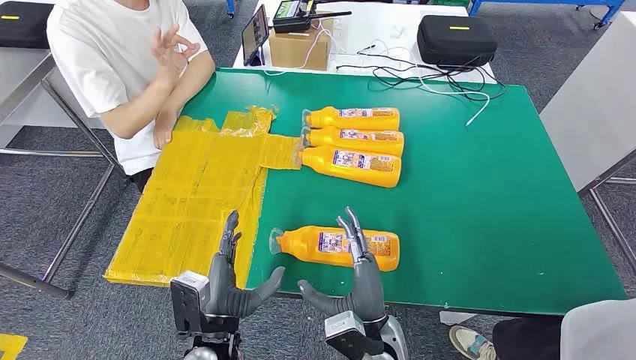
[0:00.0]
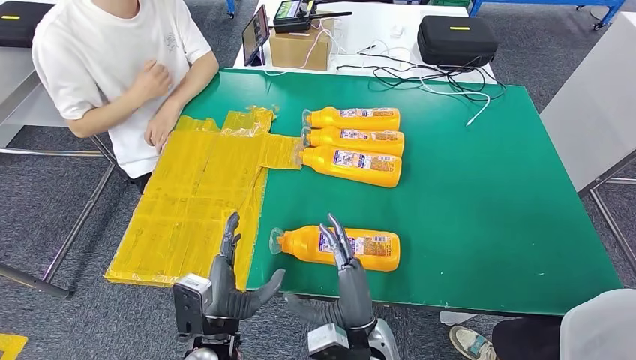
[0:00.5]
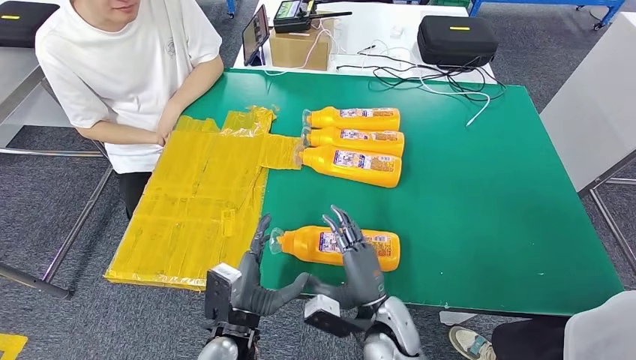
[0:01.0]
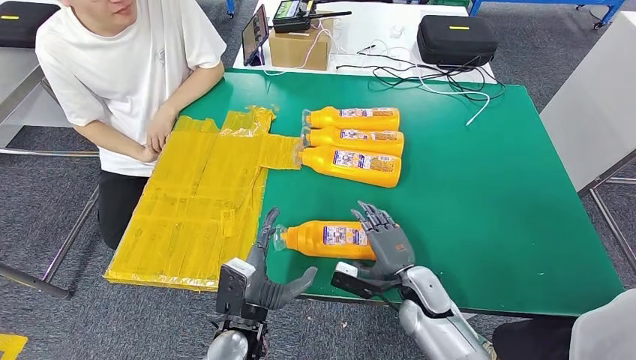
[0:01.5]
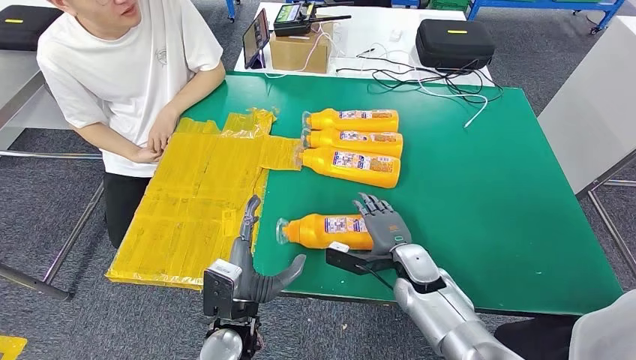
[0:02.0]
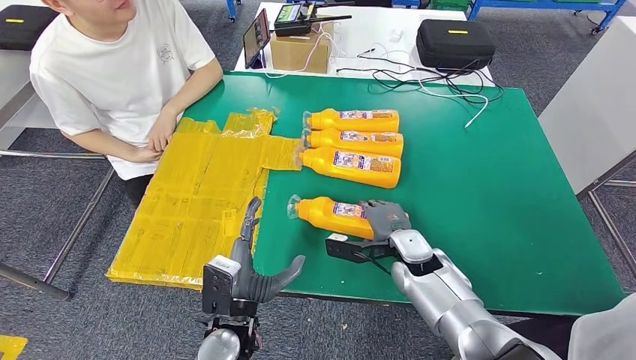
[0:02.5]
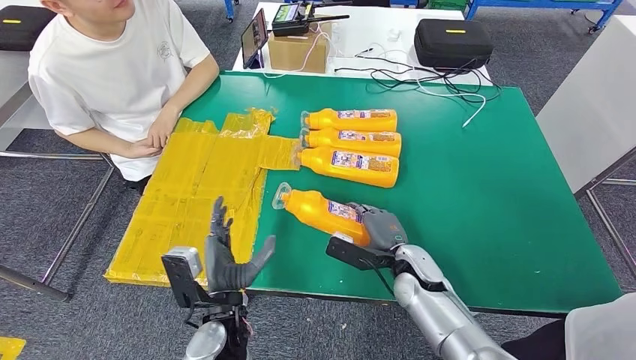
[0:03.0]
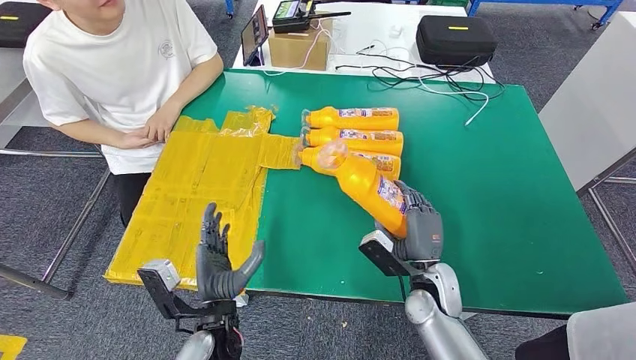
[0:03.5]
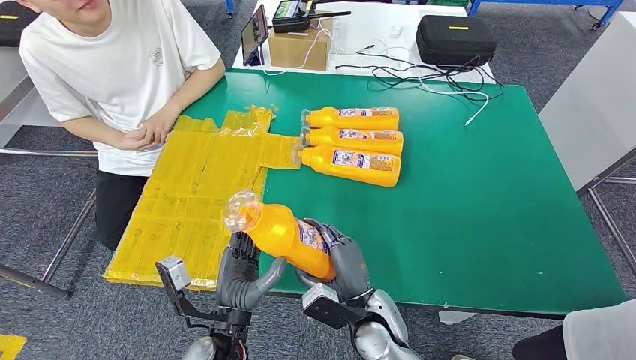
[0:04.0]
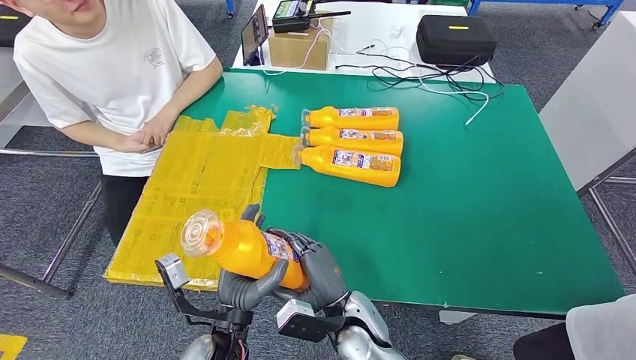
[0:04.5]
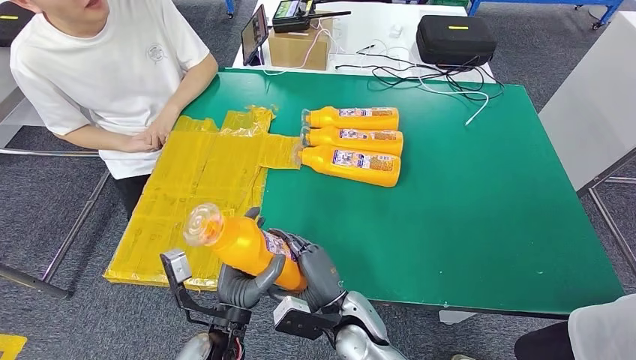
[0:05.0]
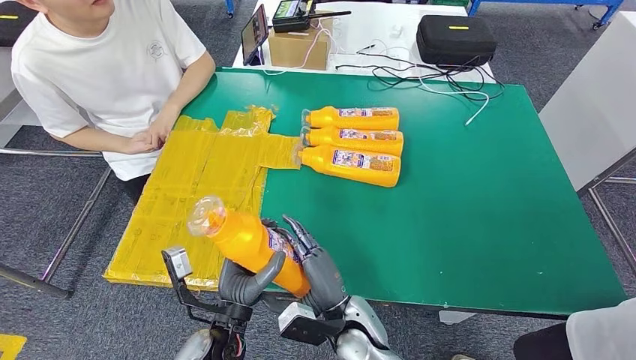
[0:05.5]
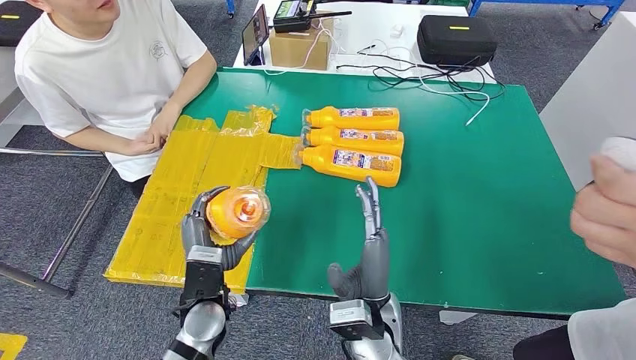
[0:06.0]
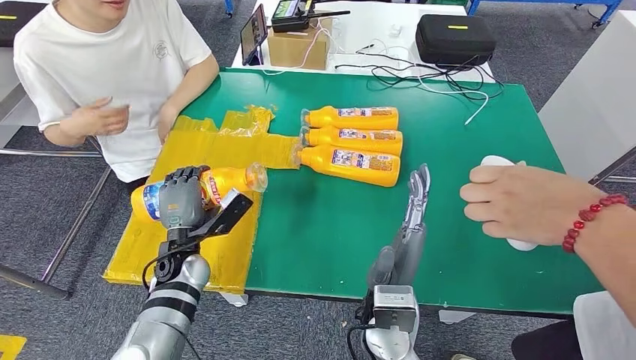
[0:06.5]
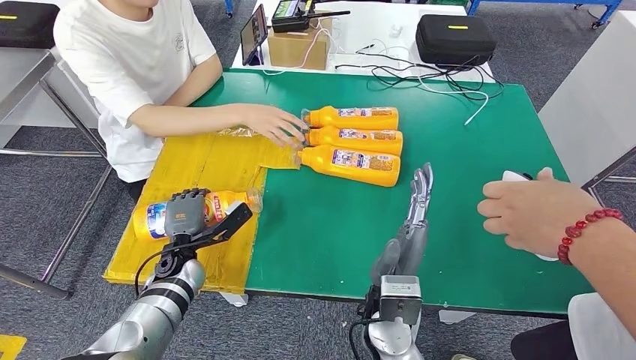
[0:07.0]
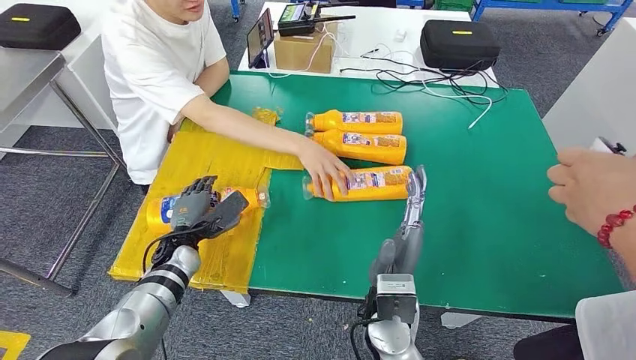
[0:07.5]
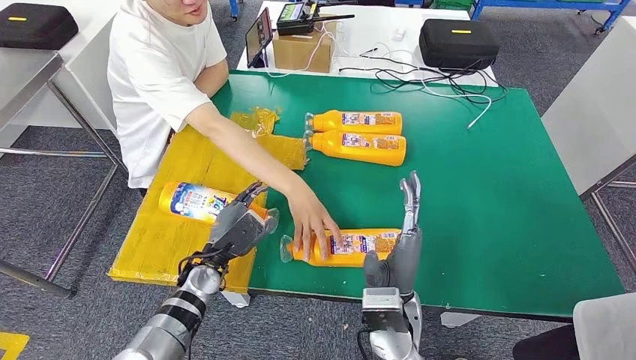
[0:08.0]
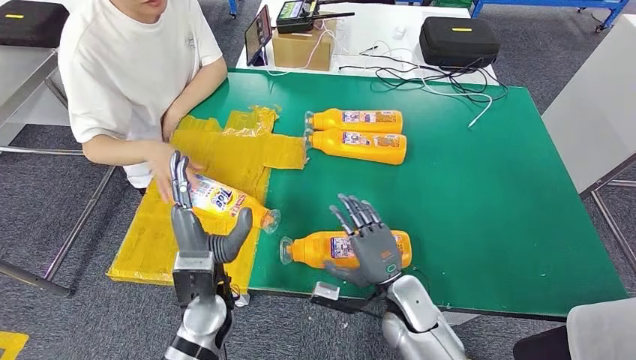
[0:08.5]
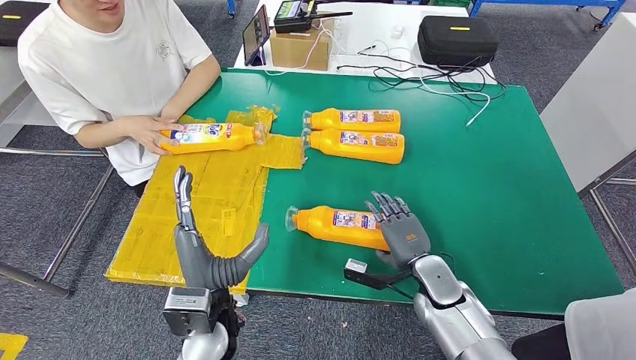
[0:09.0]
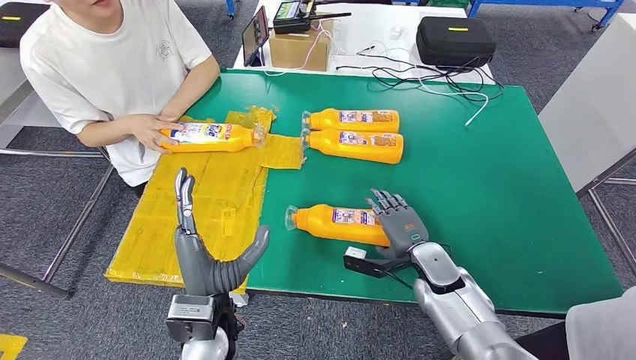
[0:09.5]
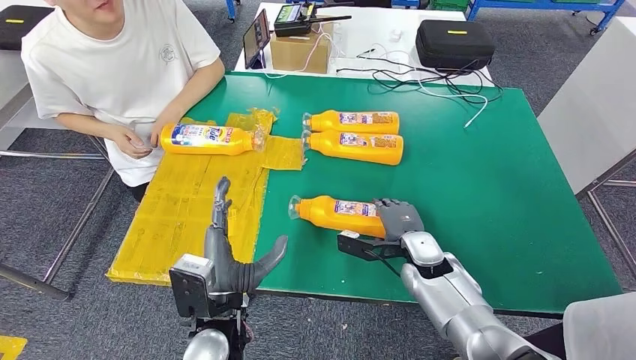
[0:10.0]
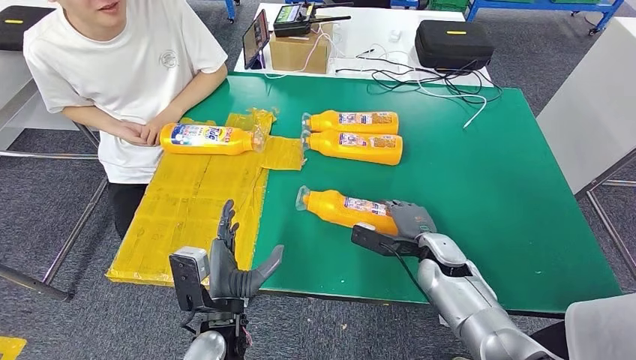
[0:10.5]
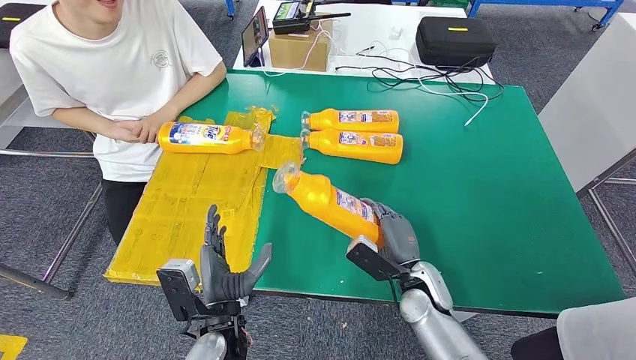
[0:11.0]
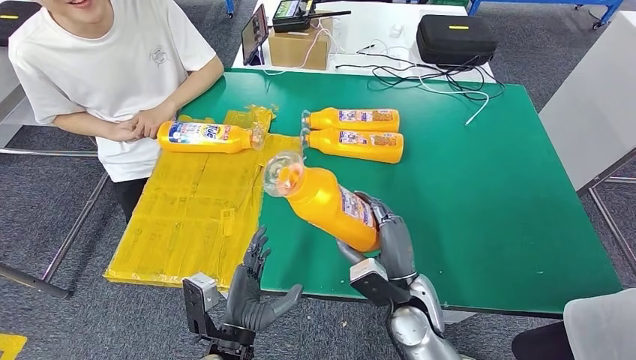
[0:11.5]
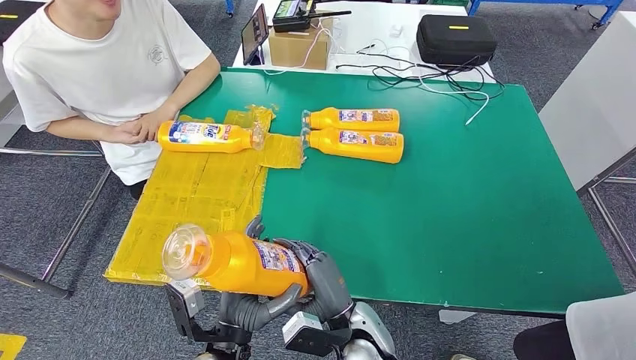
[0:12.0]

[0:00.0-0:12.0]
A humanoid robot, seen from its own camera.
Step, 0:00.0 to 0:03.0: Take the fast-moving consumer goods bottle from the table.
Step, 0:03.5 to 0:08.0: Flip the fast-moving consumer goods bottle to the front side.
0:04.0 to 0:06.0: The left hand travels forward by about 5 cm. Meanwhile the right hand is displaced upward by roughly 5 cm.

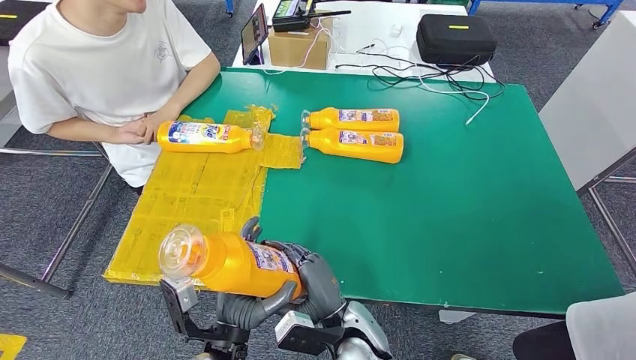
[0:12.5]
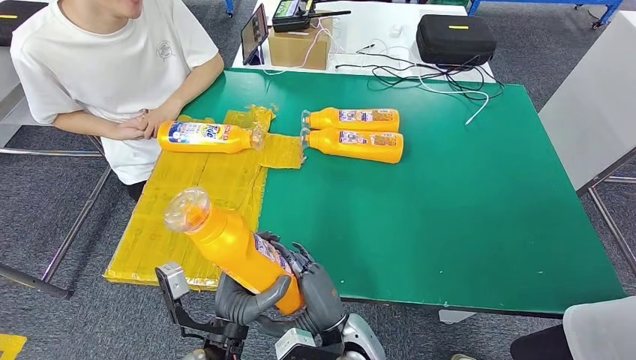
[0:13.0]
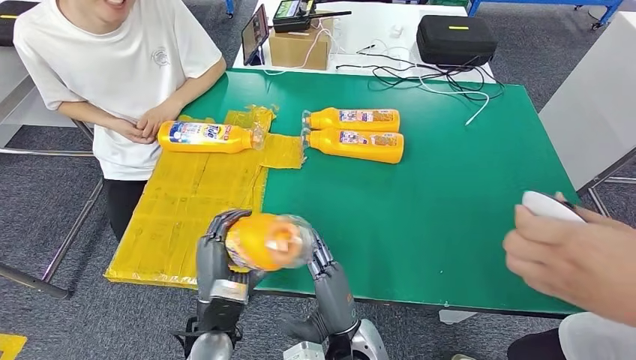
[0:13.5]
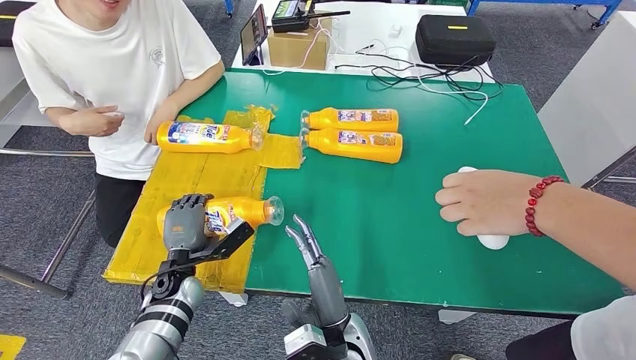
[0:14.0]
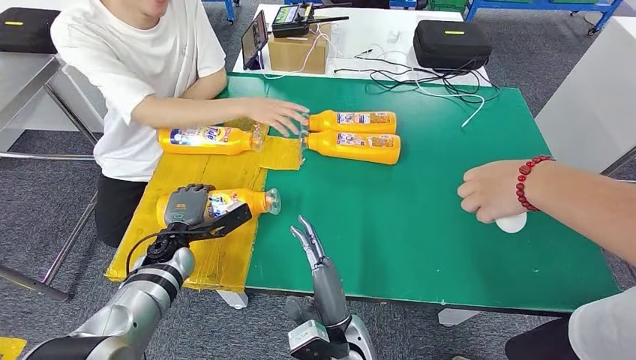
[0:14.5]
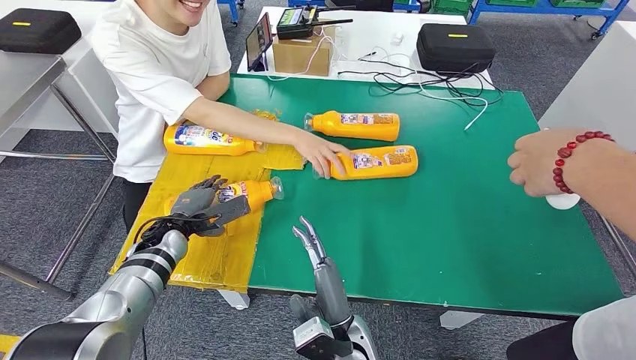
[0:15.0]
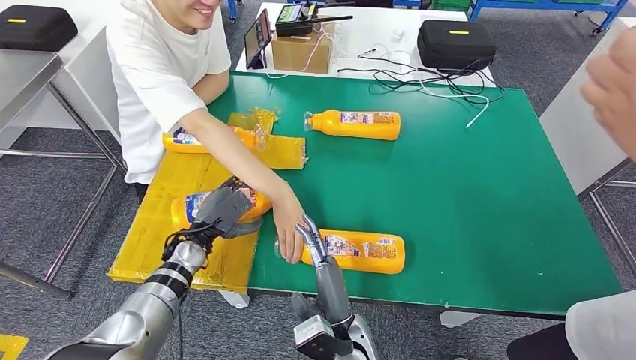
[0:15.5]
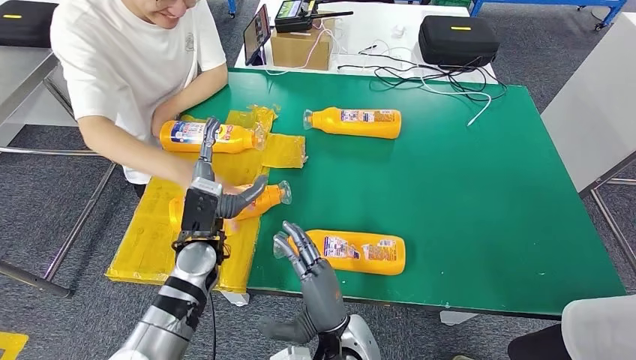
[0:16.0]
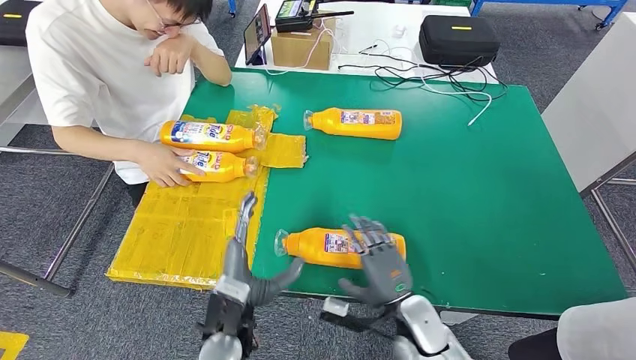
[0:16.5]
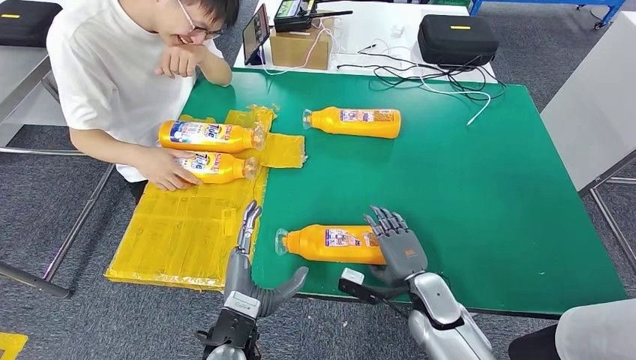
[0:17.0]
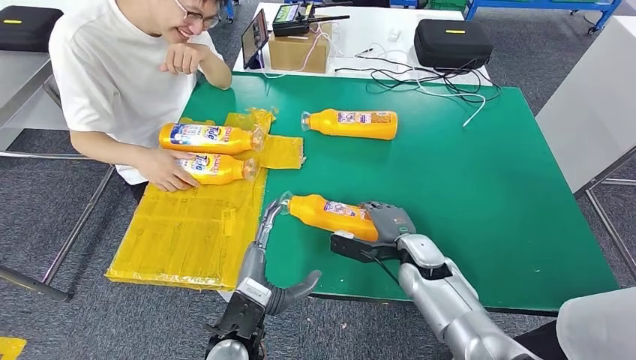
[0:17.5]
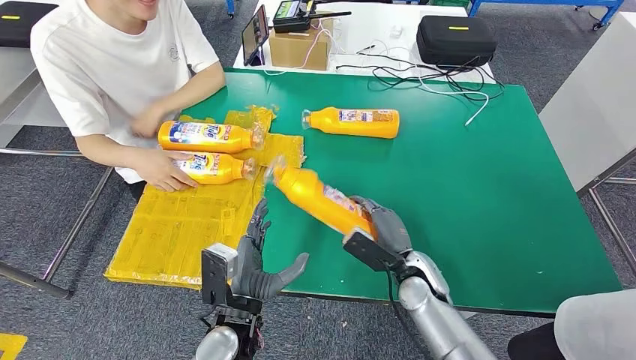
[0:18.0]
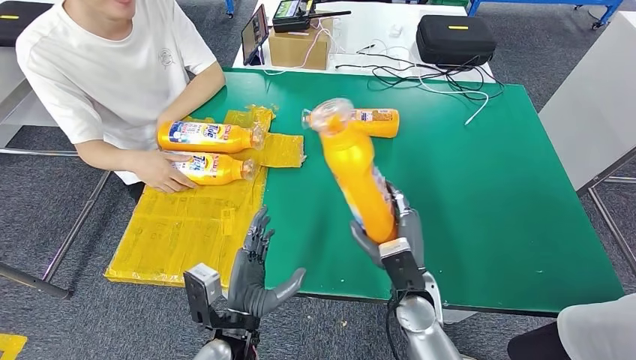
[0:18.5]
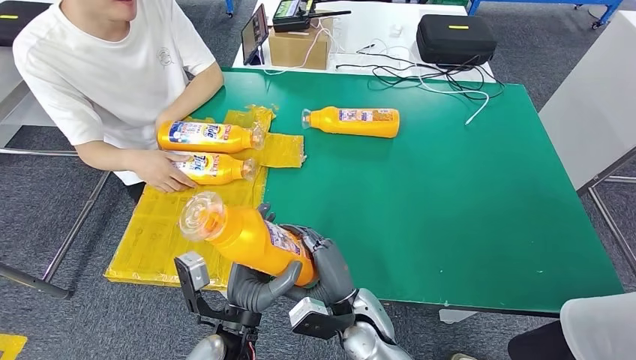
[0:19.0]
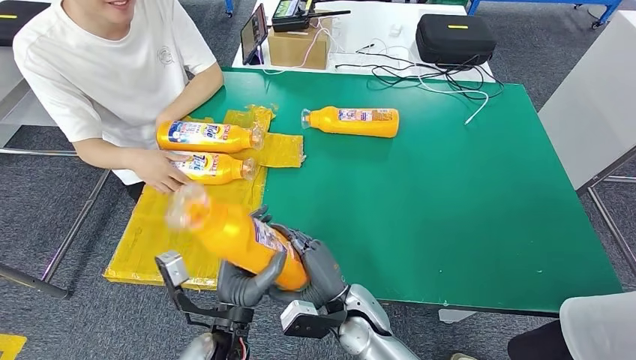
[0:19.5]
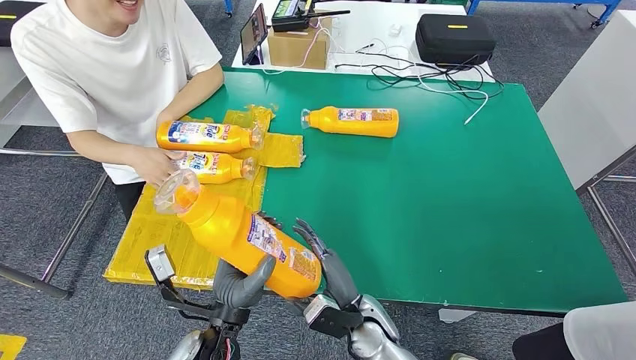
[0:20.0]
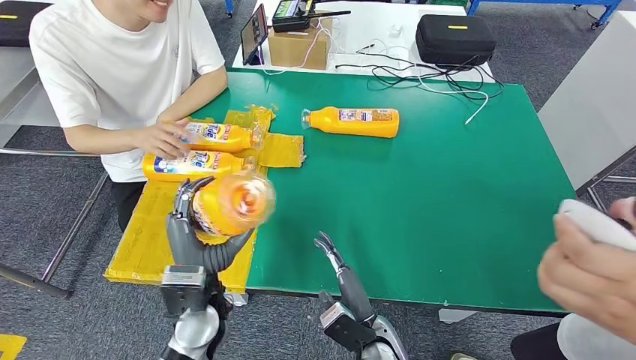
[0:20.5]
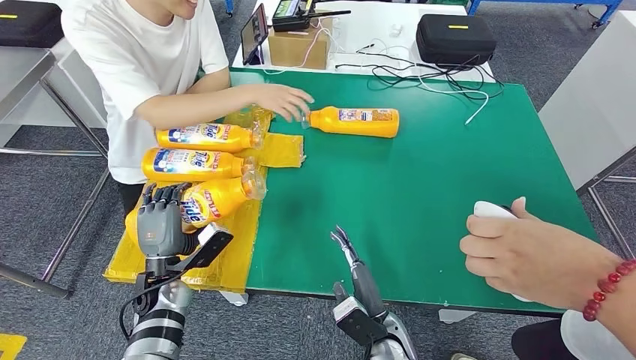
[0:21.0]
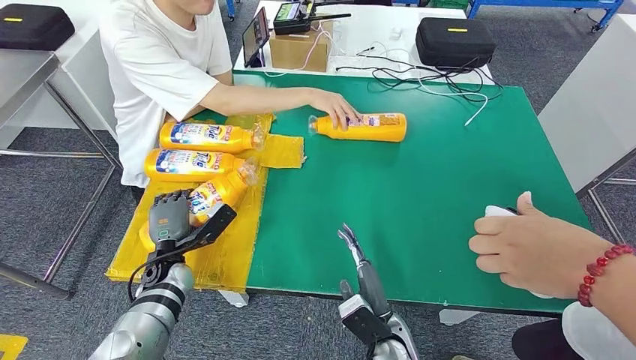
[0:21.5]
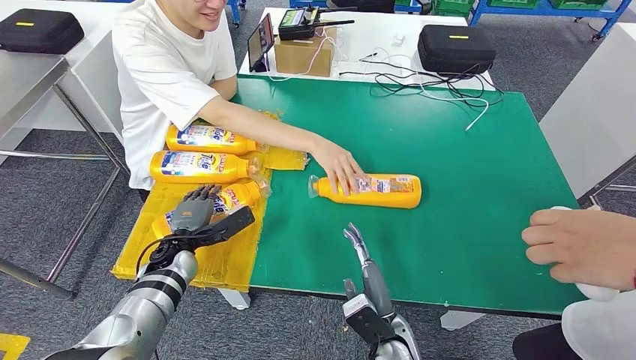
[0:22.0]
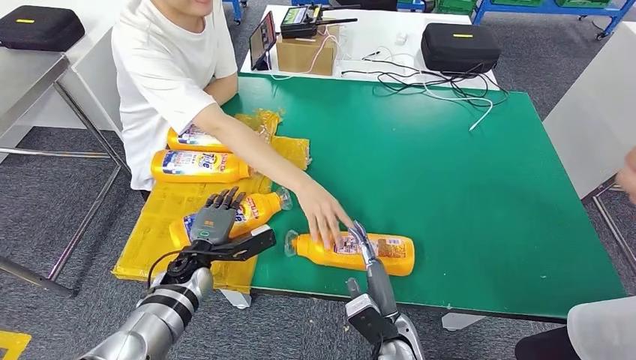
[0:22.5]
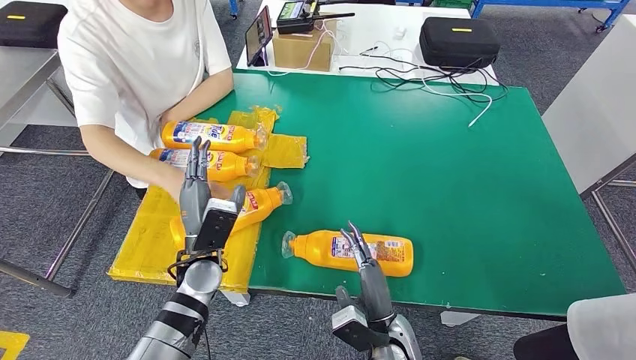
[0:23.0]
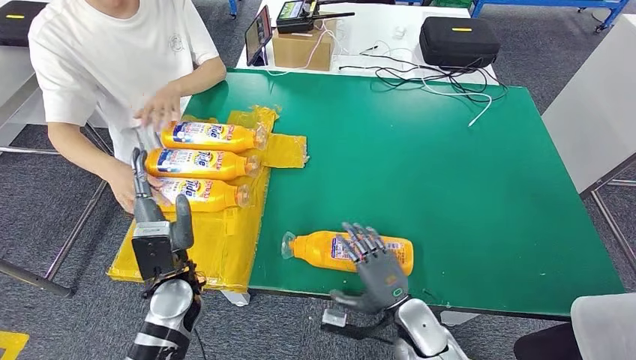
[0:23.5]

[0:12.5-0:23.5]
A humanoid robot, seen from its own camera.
Step, 0:13.5 to 0:17.0: Flip the fast-moving consumer goods bottle to the front side.
Step, 0:17.5 to 0:20.5: Pick up the fast-moving consumer goods bottle from the table.
